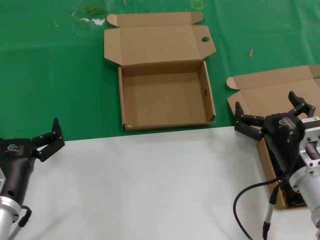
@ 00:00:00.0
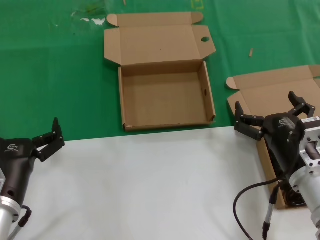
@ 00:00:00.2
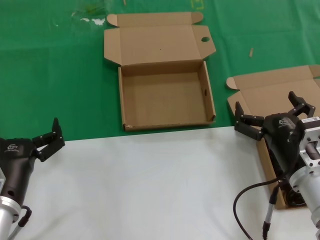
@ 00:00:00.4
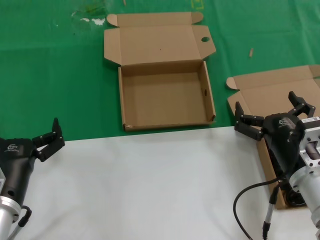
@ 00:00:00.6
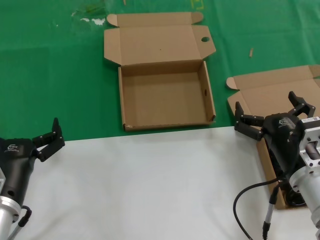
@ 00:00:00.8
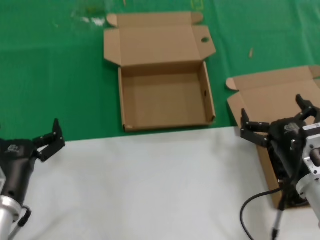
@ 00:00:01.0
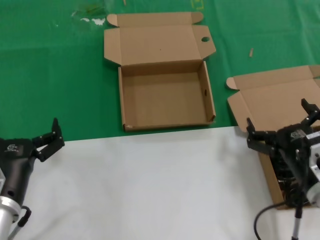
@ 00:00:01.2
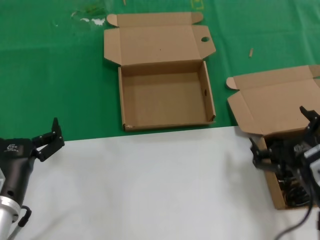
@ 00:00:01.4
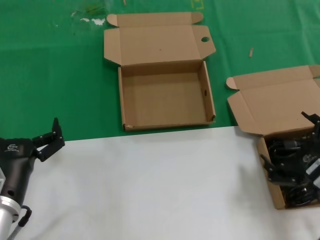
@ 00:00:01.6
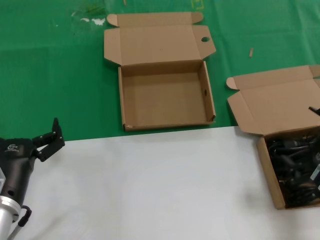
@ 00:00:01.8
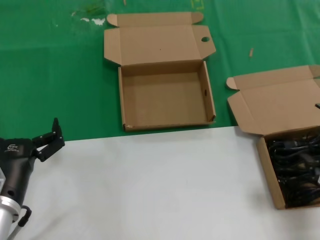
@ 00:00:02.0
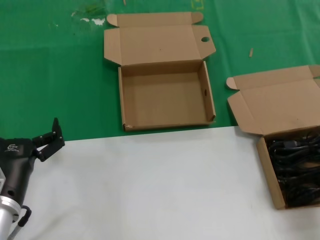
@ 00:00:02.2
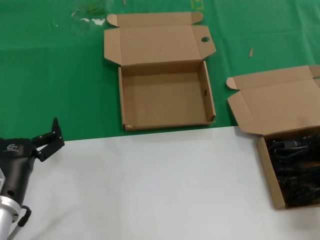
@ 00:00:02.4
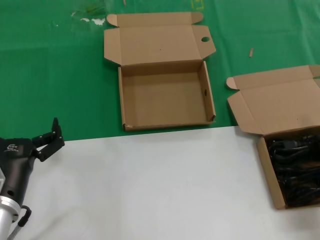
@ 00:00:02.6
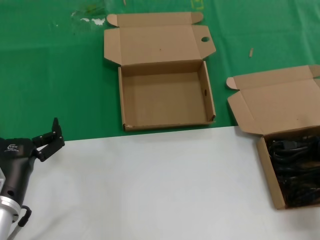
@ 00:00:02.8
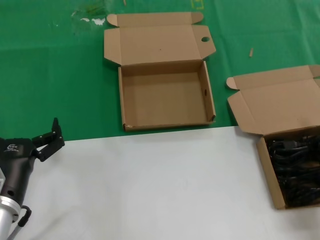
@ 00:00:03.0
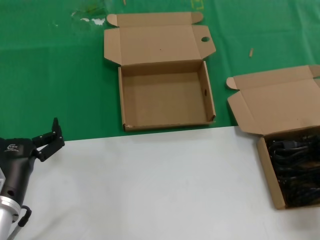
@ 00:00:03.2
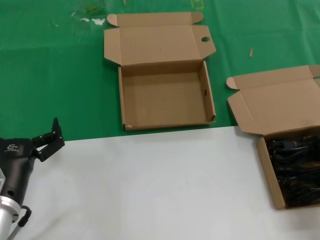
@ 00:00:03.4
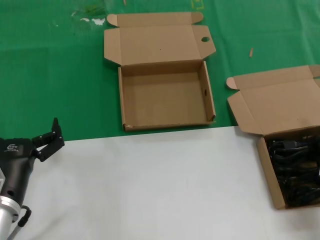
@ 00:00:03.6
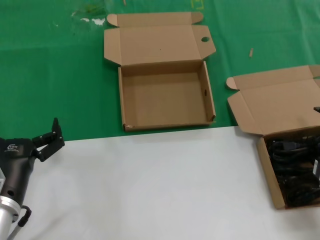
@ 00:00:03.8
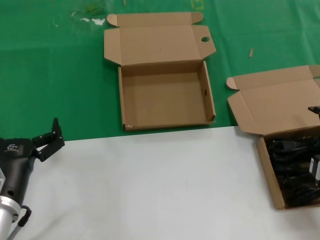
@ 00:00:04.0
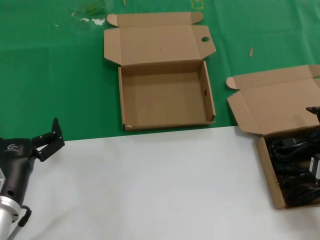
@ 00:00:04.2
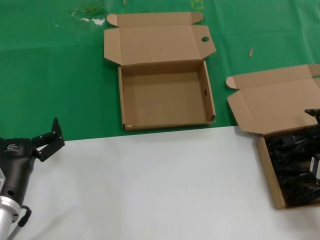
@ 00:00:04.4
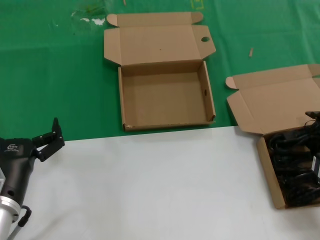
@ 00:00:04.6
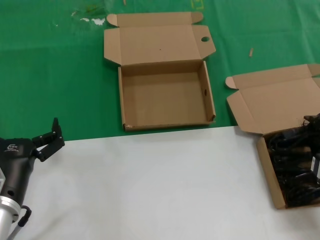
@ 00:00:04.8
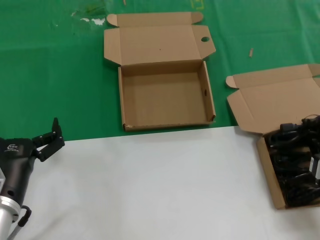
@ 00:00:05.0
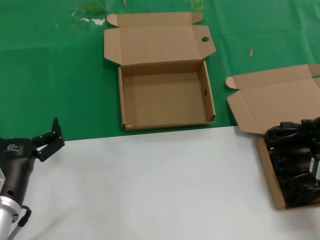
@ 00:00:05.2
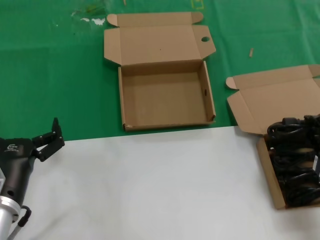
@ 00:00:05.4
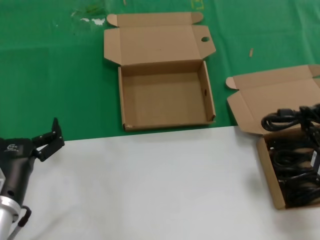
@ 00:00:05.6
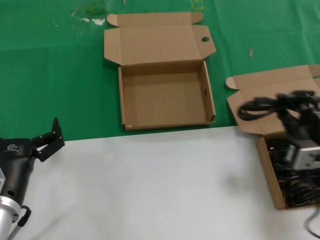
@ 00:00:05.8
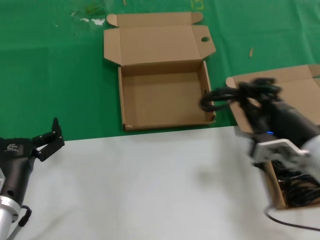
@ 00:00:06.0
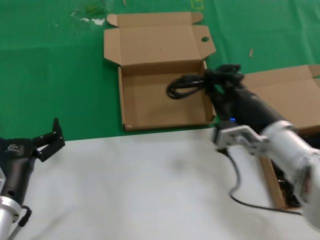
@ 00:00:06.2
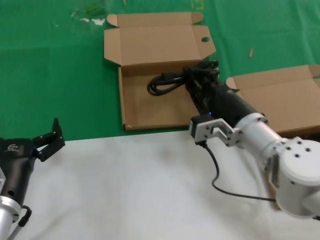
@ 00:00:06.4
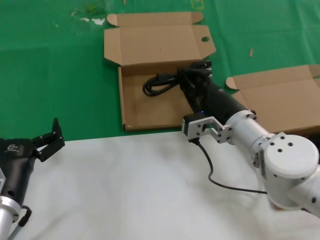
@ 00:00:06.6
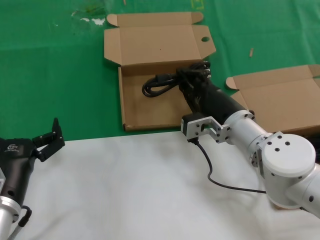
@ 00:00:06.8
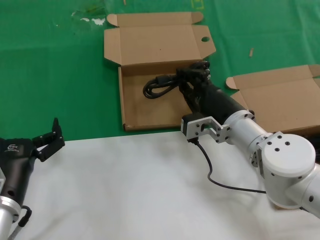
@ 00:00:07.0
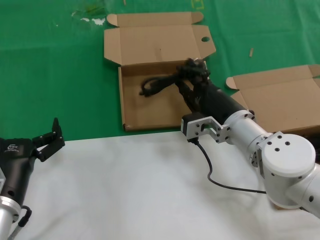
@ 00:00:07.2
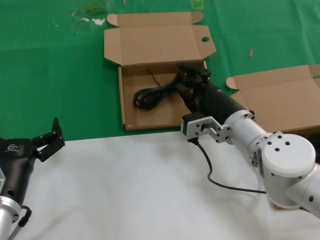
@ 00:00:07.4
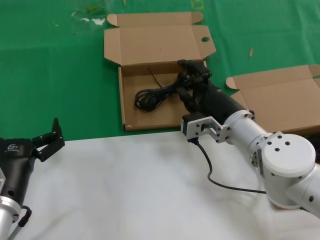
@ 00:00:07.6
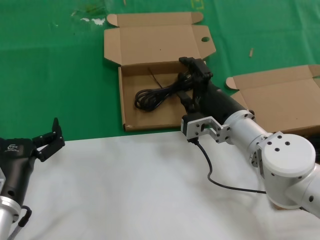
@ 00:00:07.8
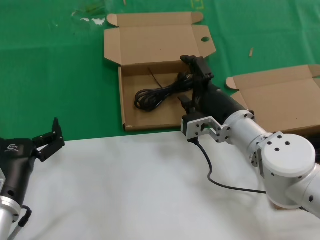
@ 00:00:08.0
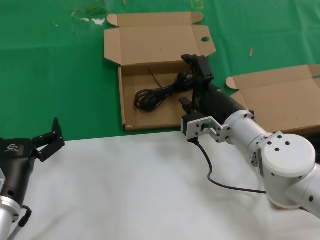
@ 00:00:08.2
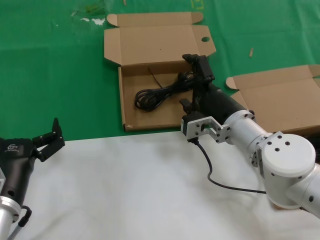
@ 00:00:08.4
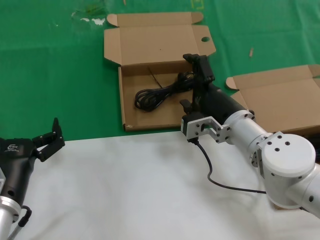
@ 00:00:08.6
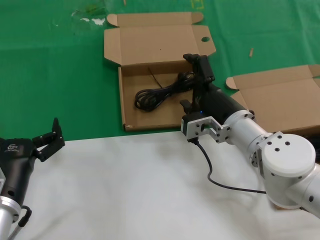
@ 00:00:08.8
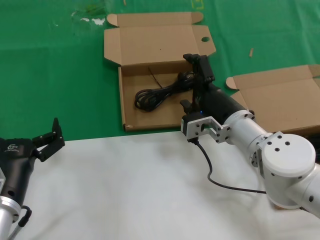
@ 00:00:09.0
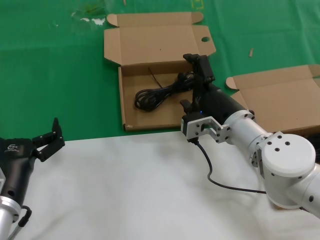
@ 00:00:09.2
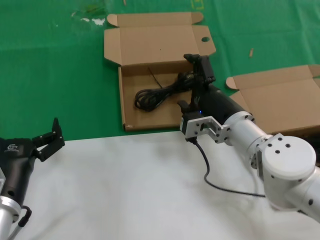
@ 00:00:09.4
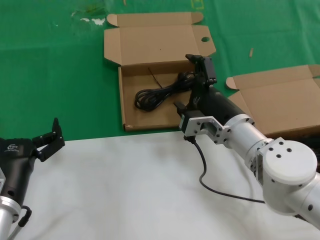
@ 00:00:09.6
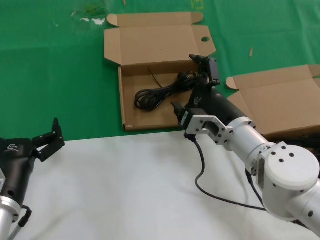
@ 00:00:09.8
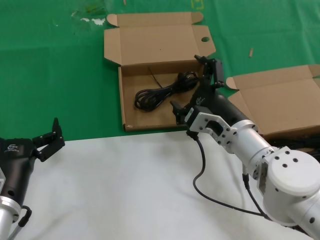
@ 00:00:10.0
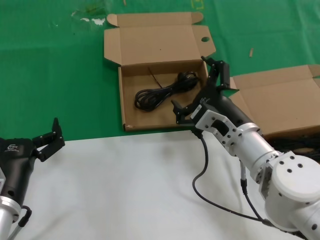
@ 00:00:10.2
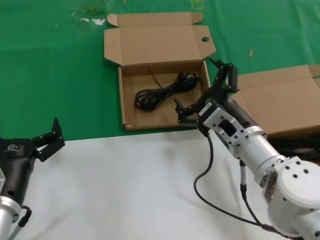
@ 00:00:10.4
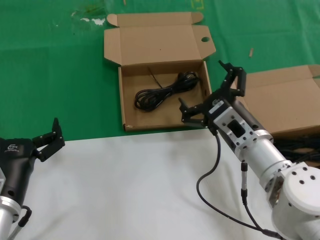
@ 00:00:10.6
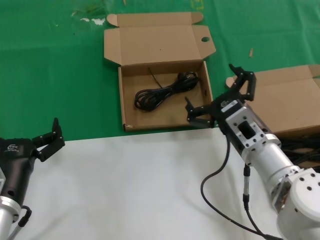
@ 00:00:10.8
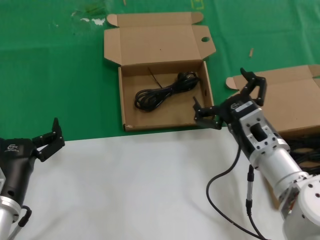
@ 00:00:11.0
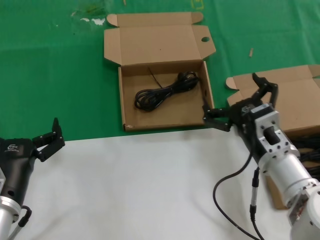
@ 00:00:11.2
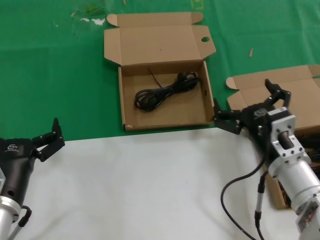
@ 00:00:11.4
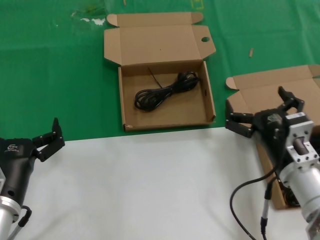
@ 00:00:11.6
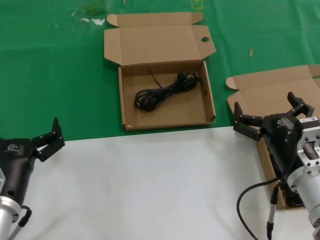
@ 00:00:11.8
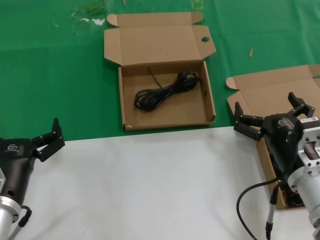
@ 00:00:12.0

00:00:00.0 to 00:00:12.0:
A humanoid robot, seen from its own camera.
Task of the whole recording: take the parts from the box containing them and put them into an empty box.
Step, 00:00:00.0 to 00:00:05.0: Grasp the data cable.
Step, 00:00:05.2 to 00:00:09.0: Place the data cable in the another box.
00:00:00.0 to 00:00:01.6: The right hand is displaced backward and to the right by approximately 10 cm.
00:00:01.6 to 00:00:03.0: The right hand shifts about 10 cm to the right.
00:00:04.4 to 00:00:06.0: The right hand moves to the left, roughly 10 cm.
00:00:06.0 to 00:00:07.6: The right hand shifts about 15 cm forward and to the left.
00:00:07.6 to 00:00:09.0: The two hands keep their place.
00:00:10.4 to 00:00:12.0: The right hand moves to the right and backward, approximately 10 cm.

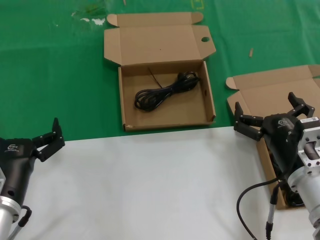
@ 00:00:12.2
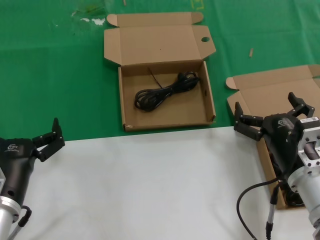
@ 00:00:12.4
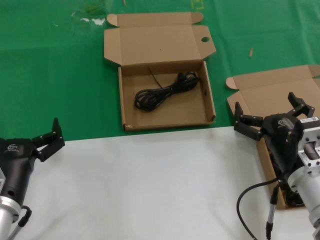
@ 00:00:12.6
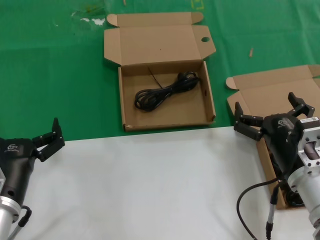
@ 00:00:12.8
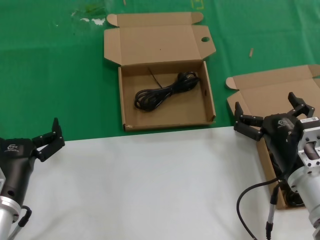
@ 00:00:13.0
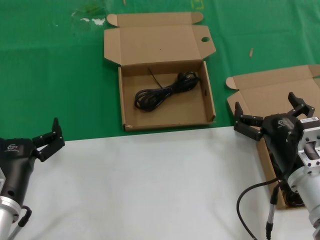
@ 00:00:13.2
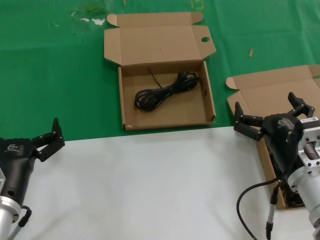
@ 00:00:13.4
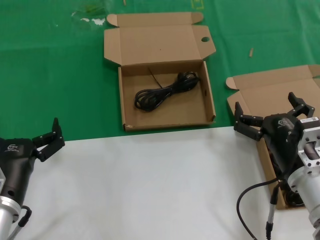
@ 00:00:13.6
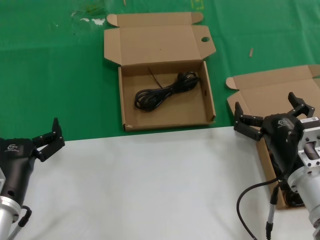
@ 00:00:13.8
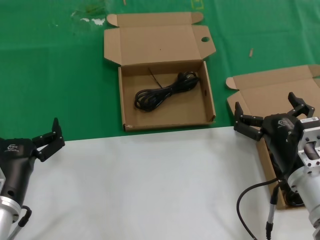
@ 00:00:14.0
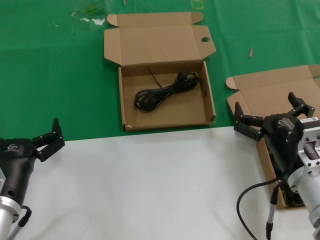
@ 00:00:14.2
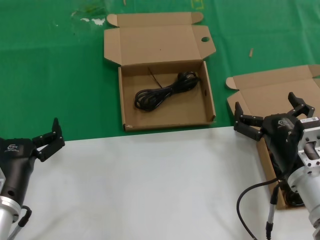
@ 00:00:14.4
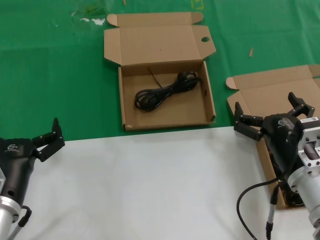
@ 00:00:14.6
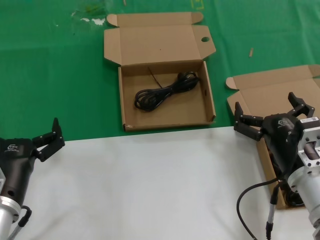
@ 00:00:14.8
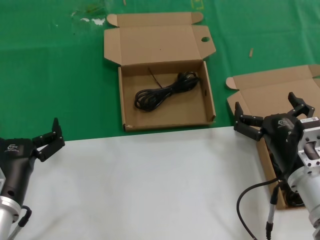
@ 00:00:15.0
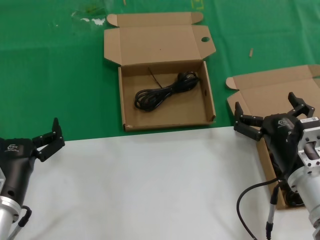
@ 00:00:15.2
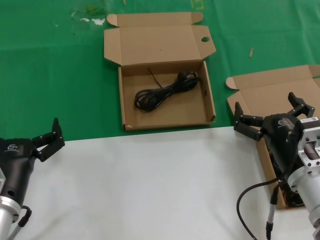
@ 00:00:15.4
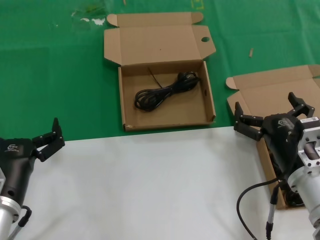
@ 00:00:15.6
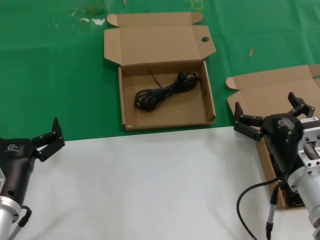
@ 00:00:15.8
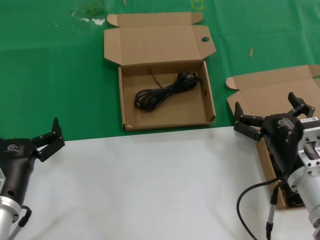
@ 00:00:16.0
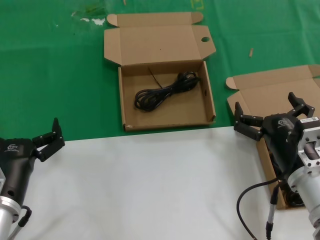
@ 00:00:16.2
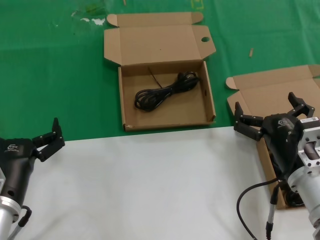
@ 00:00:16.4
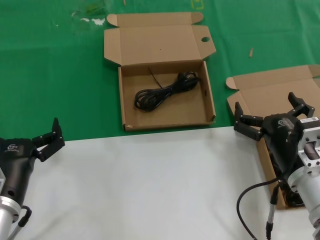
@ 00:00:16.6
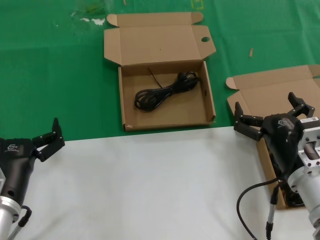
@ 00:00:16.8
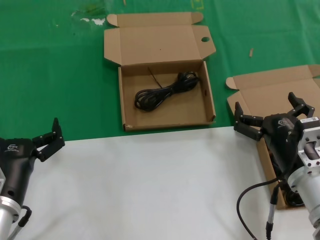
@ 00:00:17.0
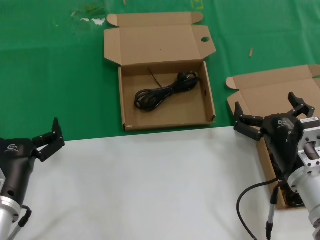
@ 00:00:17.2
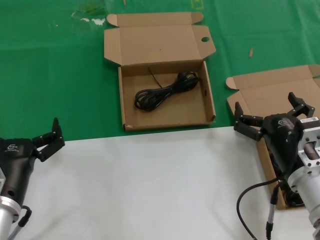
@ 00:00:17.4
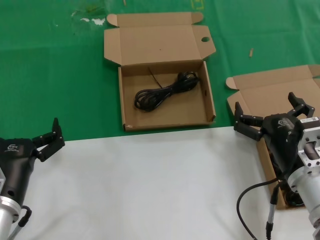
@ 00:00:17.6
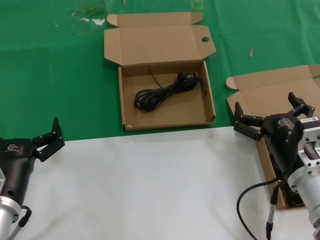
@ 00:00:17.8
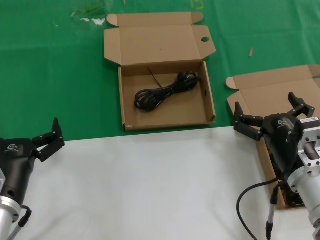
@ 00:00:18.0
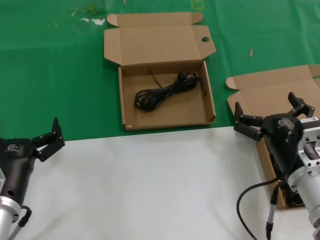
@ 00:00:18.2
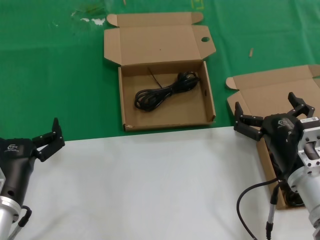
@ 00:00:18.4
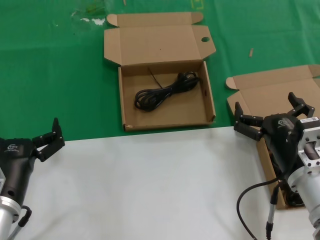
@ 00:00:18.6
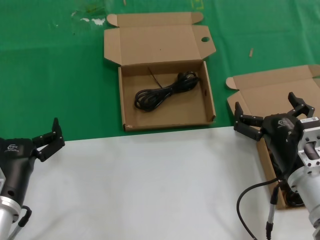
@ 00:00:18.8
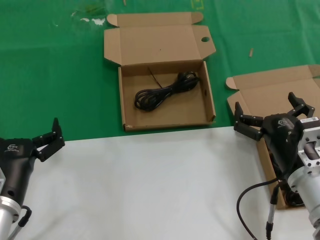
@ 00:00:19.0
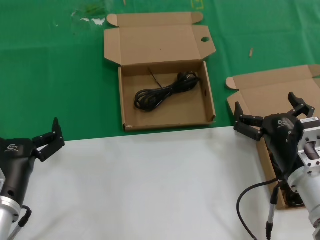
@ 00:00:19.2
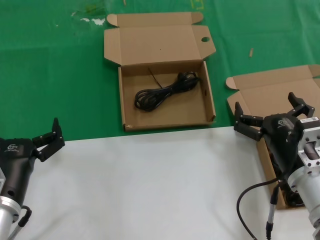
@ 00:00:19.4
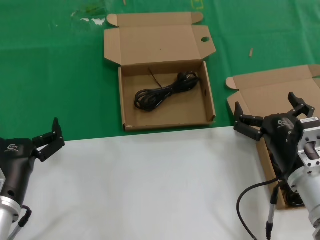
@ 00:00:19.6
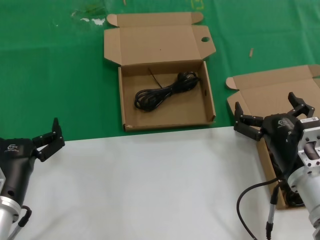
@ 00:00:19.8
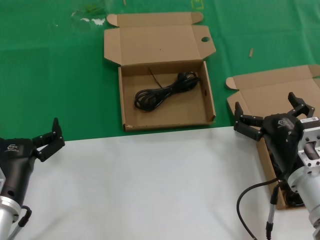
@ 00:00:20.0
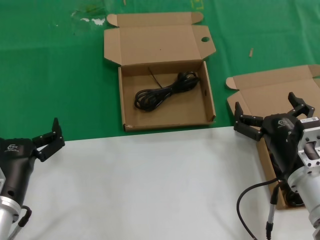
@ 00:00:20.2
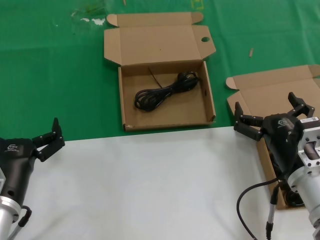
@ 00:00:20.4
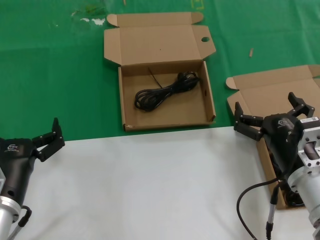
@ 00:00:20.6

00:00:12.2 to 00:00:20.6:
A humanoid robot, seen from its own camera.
Task of the whole recording: take the parts from the box containing them and put them into an empty box.
00:00:12.2 to 00:00:20.6: Both hands stay about where they are.
